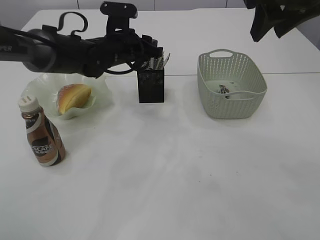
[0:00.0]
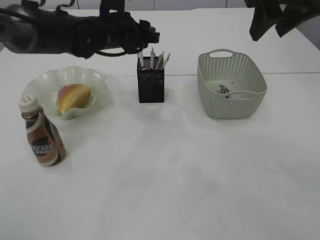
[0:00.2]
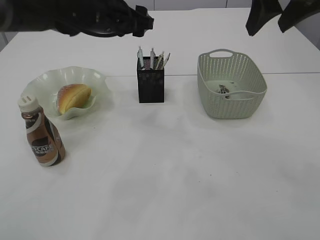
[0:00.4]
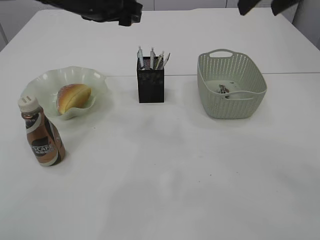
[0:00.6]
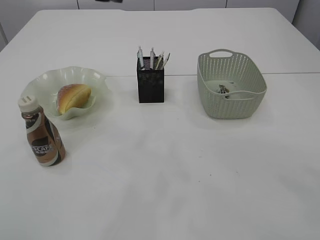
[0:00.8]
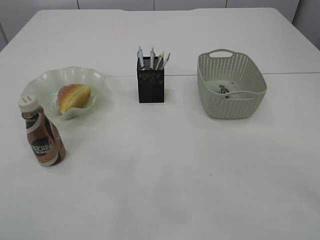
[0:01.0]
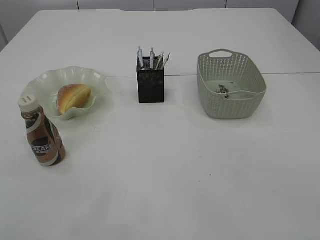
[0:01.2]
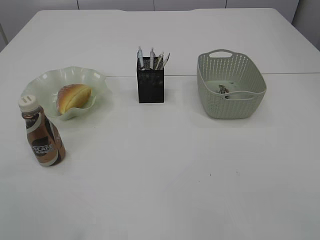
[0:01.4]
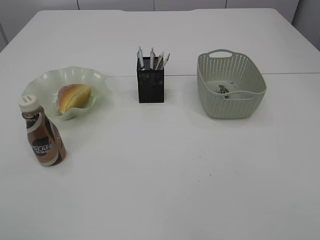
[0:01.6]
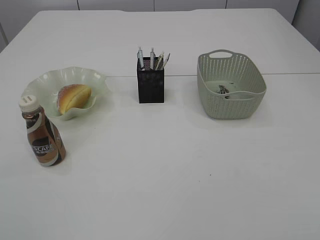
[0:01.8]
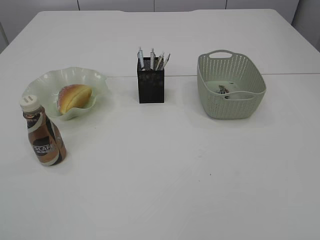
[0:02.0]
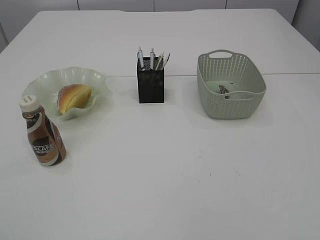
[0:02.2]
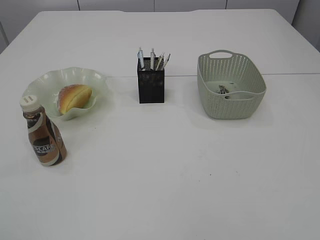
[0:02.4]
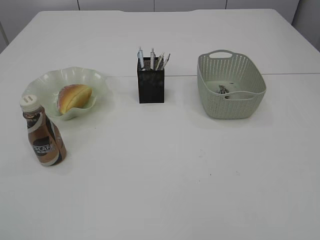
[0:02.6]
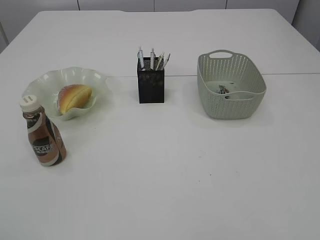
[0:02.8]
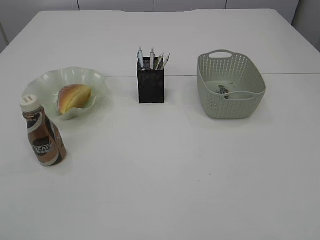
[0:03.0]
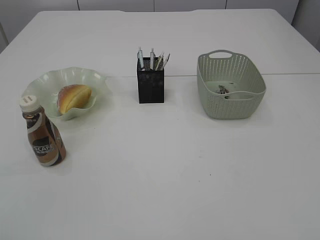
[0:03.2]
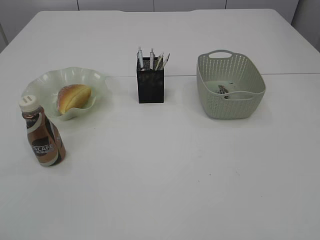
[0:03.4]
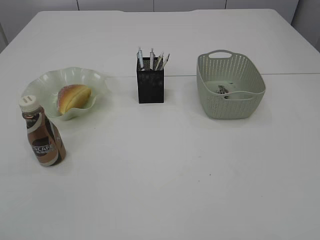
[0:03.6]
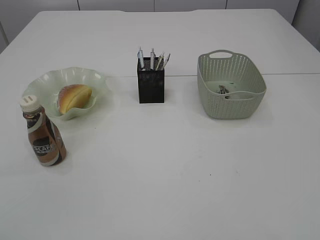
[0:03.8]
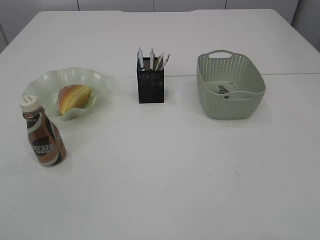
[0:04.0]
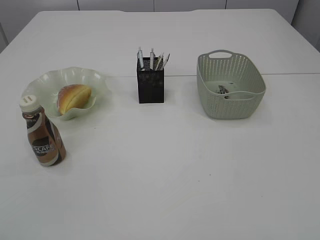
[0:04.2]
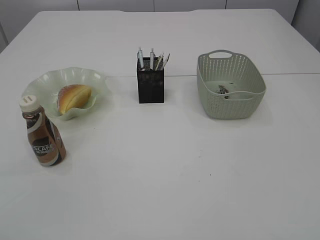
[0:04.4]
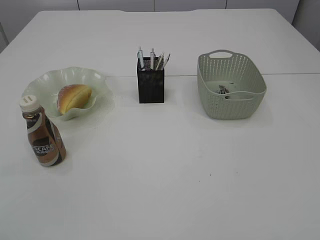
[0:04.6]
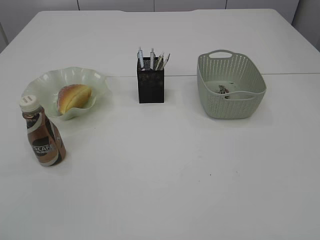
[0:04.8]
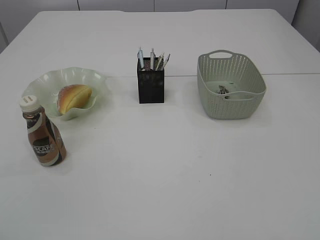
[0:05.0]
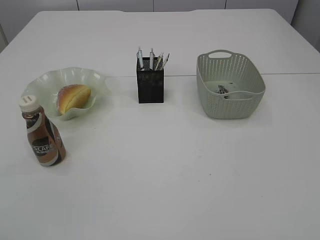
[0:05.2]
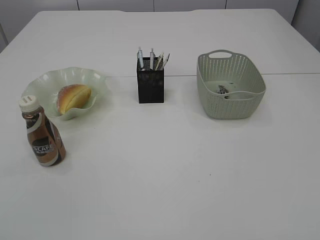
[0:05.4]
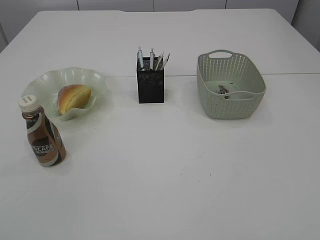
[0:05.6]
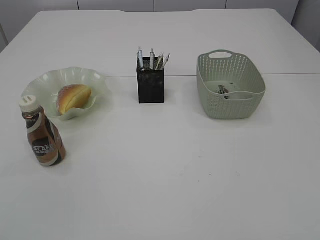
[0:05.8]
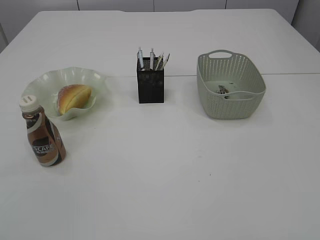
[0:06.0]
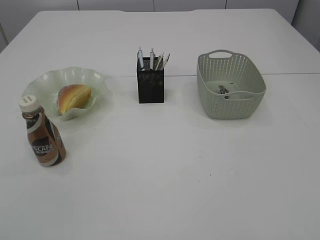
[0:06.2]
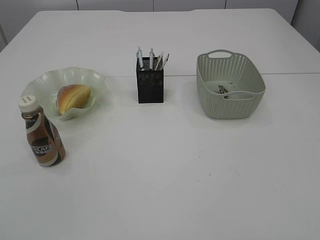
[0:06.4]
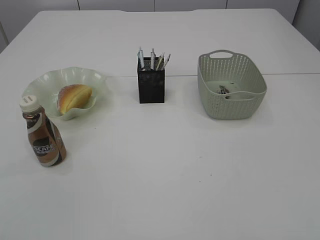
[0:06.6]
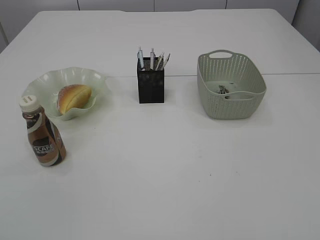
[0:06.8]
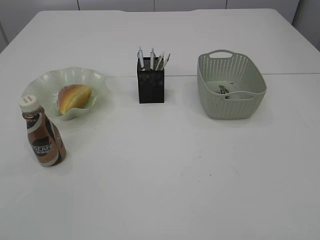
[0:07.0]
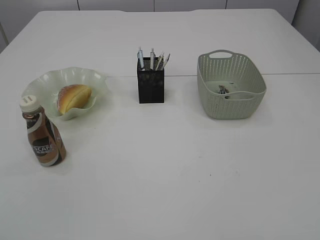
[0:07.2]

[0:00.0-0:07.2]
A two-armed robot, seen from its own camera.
0:00.0 to 0:01.4: The right gripper goes roughly 20 cm upward and backward. Meanwhile the left gripper travels upward, backward and to the left by some 40 cm, and opens its fingers.
0:05.8 to 0:07.2: Both grippers stay about where they are.

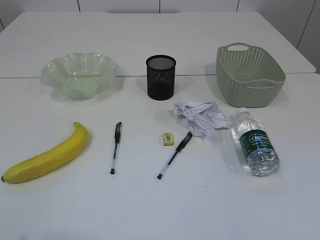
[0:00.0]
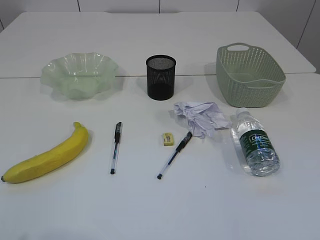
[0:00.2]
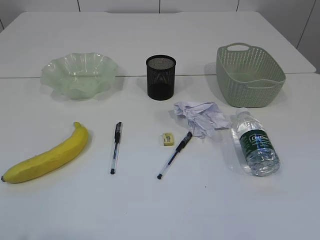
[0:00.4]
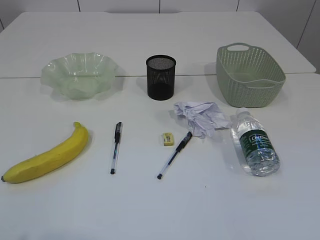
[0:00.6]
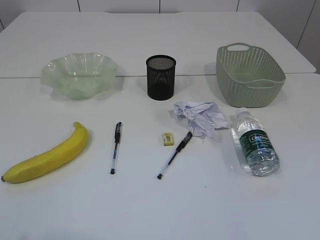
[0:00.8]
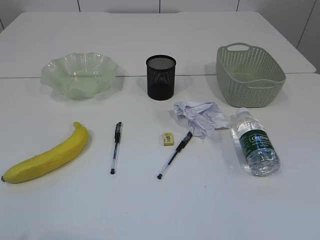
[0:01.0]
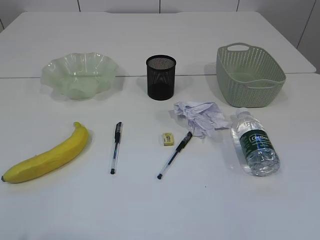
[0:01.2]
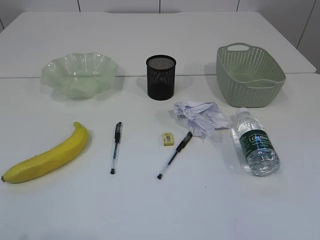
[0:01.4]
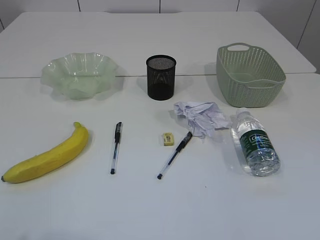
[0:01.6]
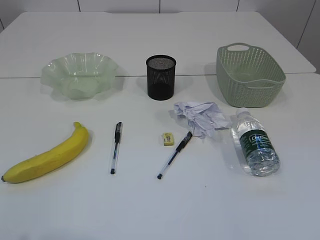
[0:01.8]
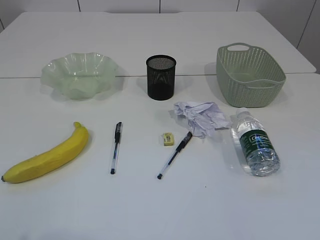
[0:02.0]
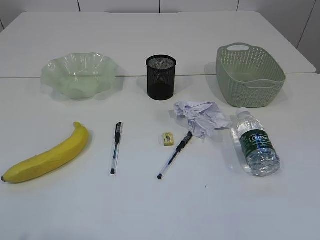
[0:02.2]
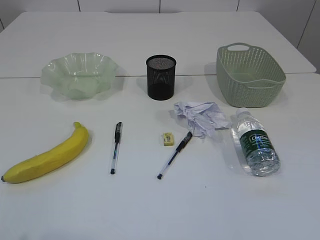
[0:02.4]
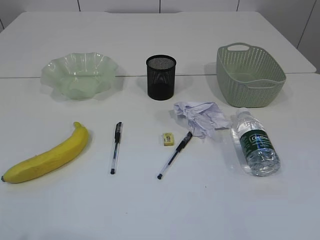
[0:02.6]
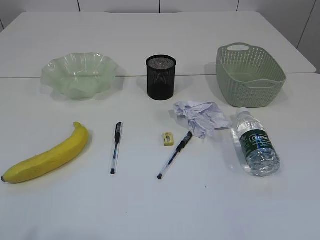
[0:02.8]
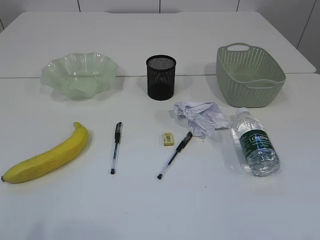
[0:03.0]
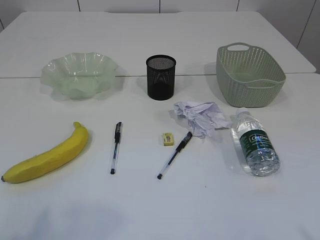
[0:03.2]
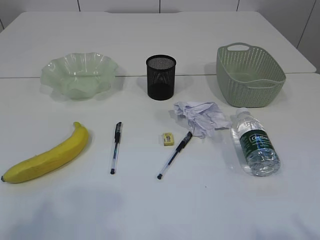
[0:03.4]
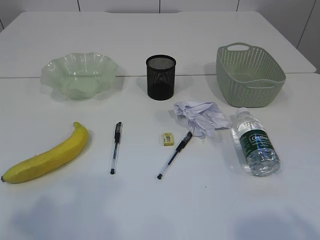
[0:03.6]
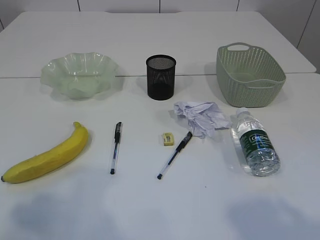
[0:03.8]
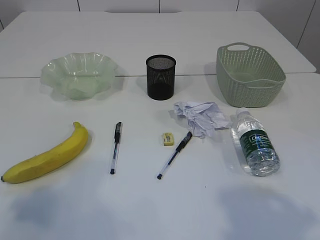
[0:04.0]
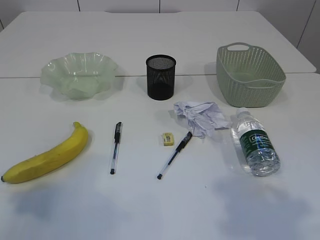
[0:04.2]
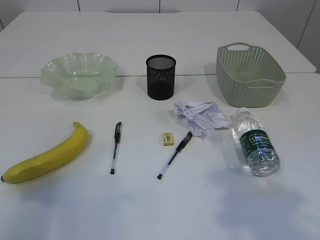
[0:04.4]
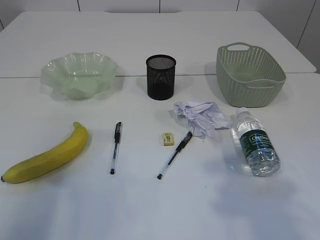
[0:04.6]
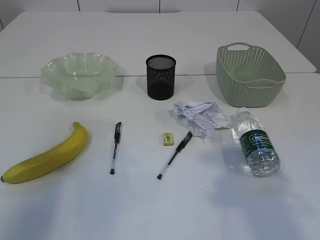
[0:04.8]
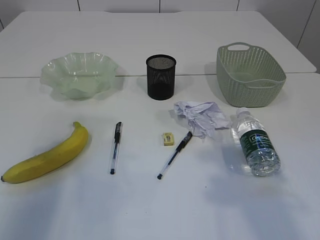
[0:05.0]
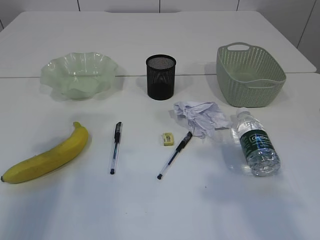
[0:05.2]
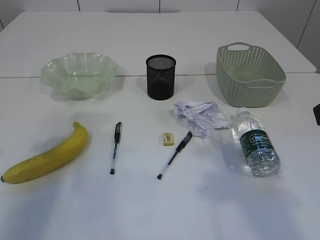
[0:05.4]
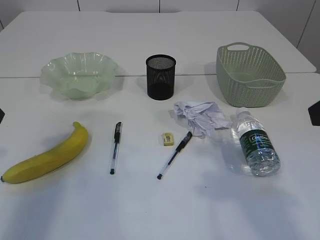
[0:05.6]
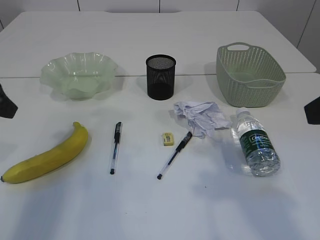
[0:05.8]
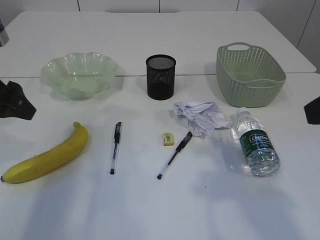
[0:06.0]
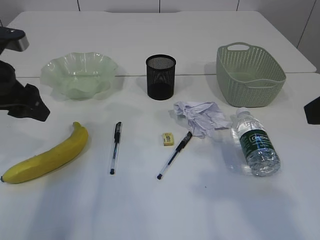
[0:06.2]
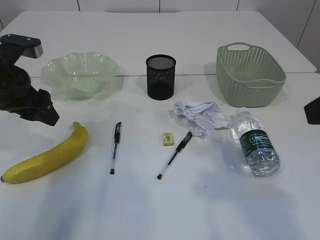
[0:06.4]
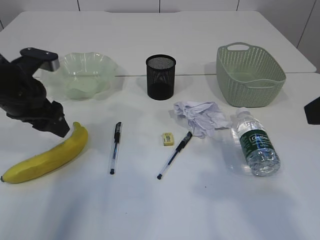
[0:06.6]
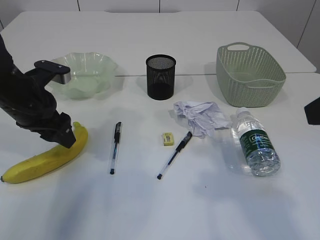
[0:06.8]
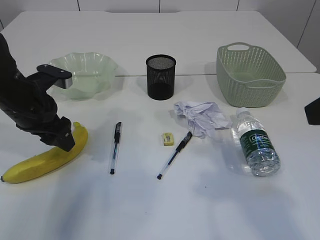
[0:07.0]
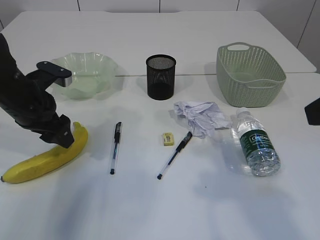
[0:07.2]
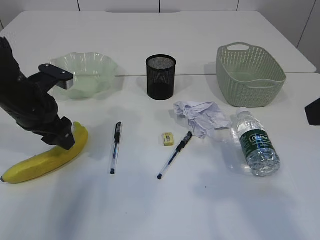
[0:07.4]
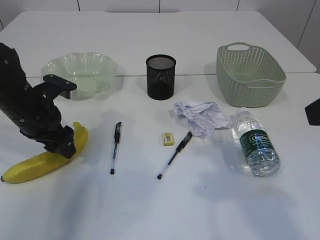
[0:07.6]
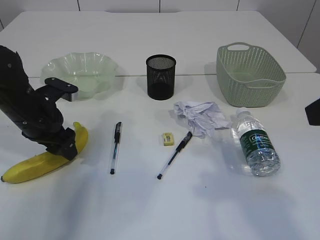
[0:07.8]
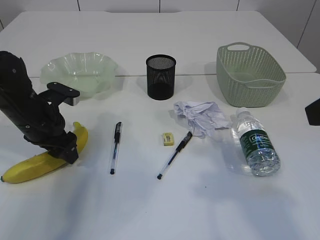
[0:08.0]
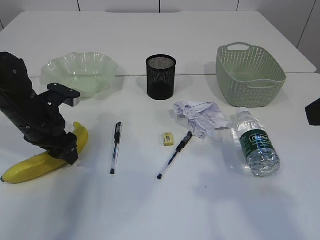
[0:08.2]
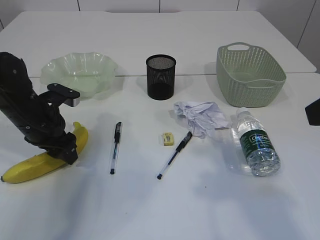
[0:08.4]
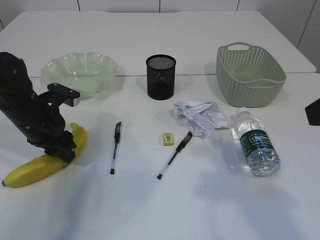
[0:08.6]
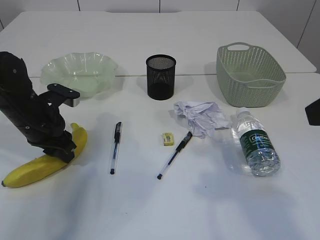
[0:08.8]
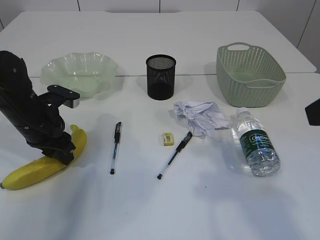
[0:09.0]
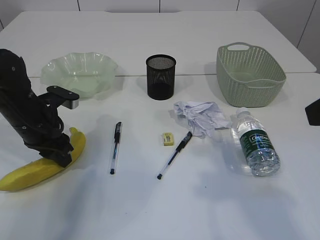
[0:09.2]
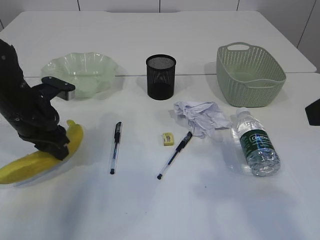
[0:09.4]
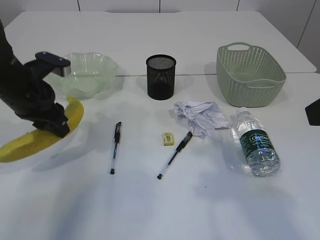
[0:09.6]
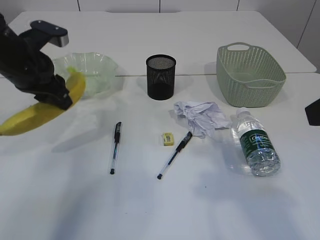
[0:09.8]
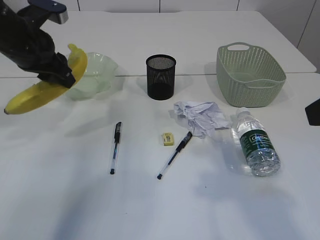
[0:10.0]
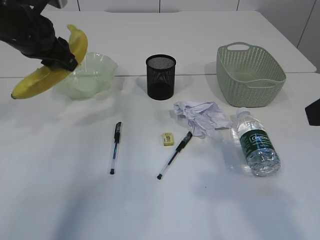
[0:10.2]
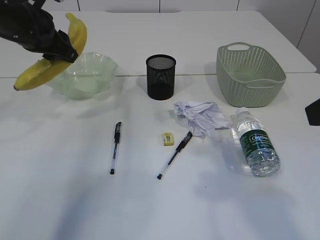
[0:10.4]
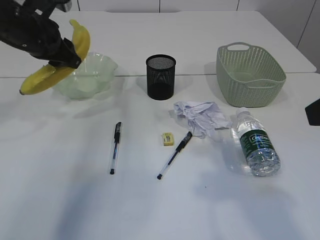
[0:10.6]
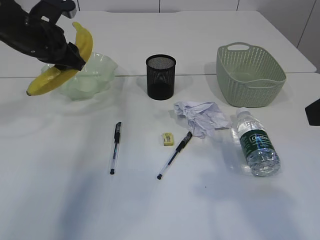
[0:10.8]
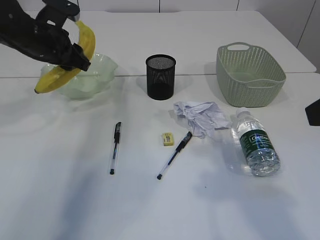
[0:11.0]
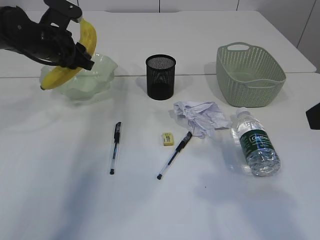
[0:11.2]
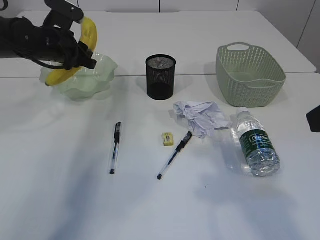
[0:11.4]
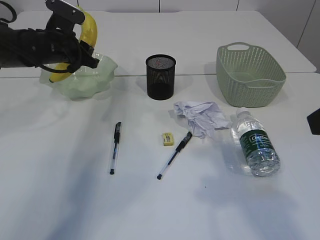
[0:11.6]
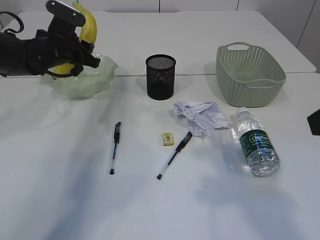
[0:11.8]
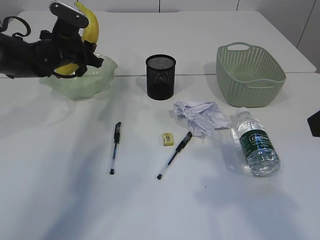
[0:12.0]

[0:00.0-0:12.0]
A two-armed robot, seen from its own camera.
0:03.0 to 0:04.4: The right gripper shifts some 15 cm forward and upward; the left gripper moves forward, approximately 15 cm.
0:04.4 to 0:06.0: The left gripper heads forward, covering approximately 15 cm; the right gripper is displaced forward by roughly 5 cm.
0:06.0 to 0:07.6: The left gripper shifts about 10 cm downward and forward.
0:07.6 to 0:09.0: The left gripper closes up.
0:09.0 to 0:10.4: The left gripper shifts approximately 15 cm upward.
0:10.4 to 0:12.0: The left gripper heads downward and forward, covering roughly 15 cm.

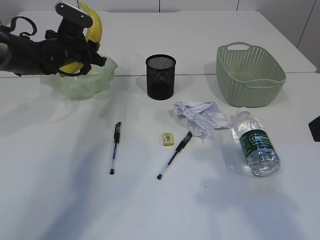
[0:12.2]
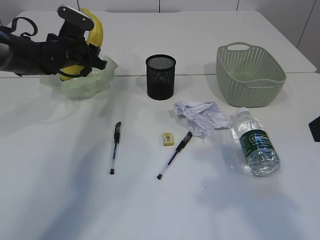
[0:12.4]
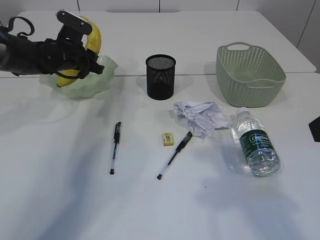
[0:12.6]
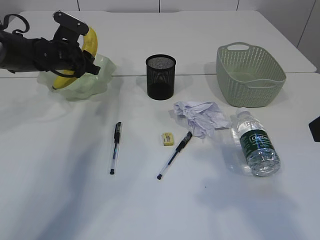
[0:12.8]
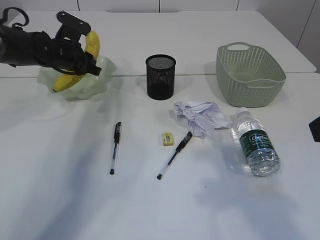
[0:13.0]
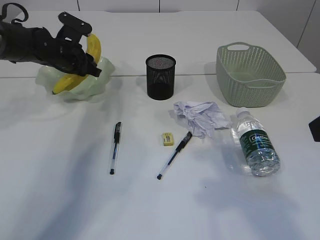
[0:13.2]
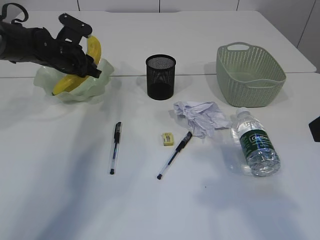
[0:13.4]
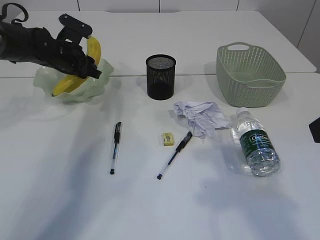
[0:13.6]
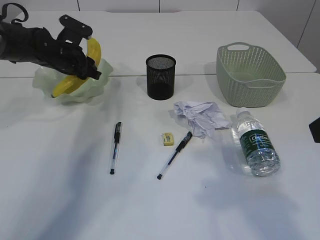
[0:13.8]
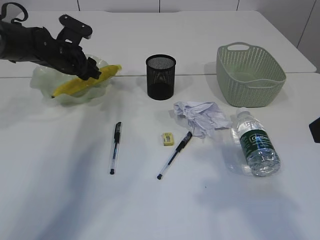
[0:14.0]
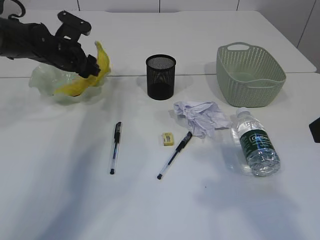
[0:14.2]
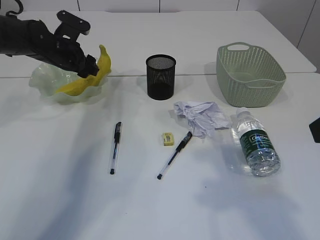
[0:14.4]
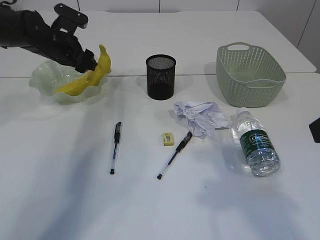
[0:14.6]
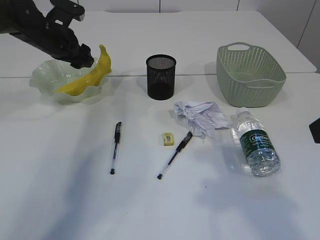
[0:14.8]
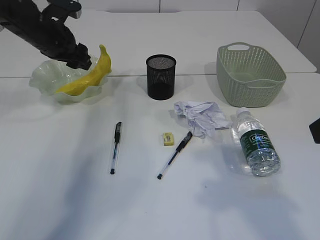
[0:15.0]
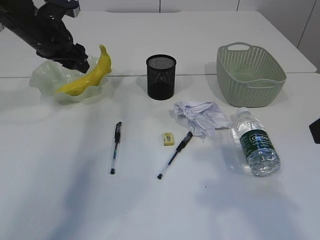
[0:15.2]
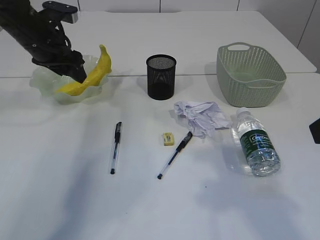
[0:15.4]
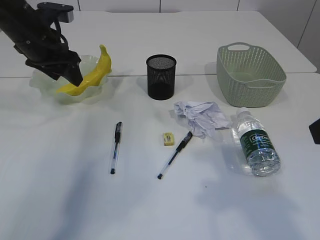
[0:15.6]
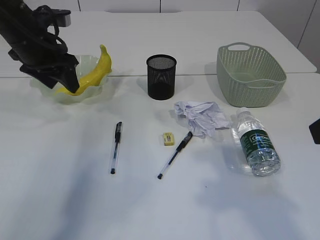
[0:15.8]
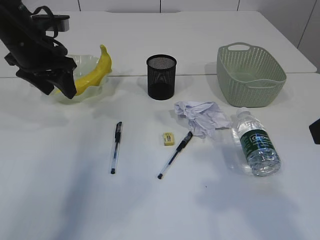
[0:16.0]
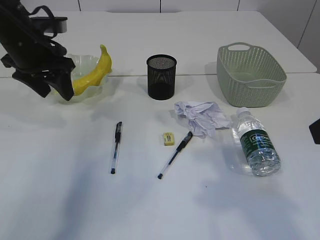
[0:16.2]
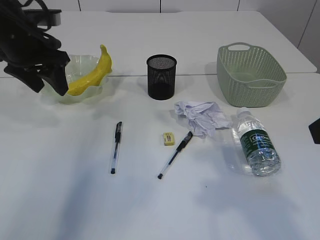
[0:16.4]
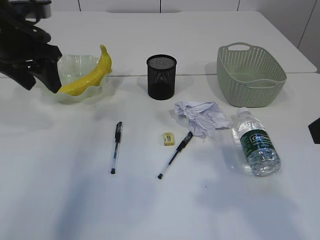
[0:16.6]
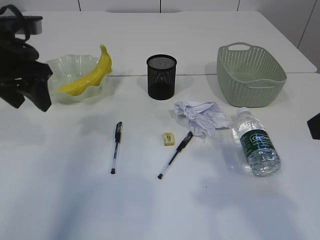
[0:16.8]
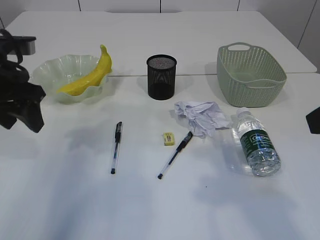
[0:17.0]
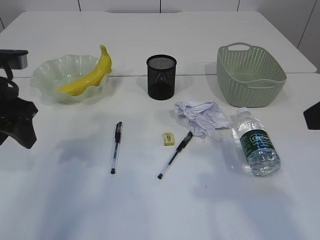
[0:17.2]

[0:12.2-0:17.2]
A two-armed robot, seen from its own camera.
Step, 0:12.2 to 0:16.0: Place the banana in the plate.
0:13.8 to 0:15.6: The left gripper moves upward and backward, about 10 cm.
0:15.6 to 0:17.2: The left gripper travels backward by some 15 cm.
